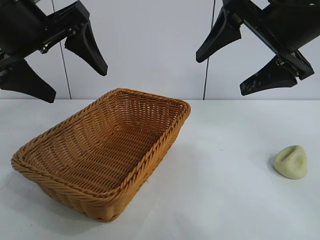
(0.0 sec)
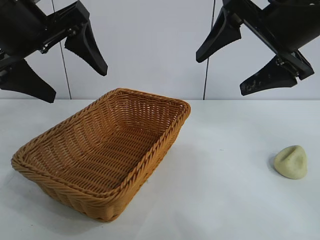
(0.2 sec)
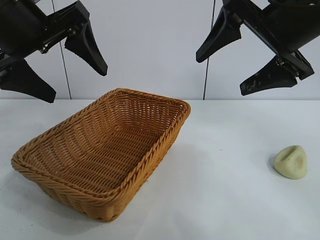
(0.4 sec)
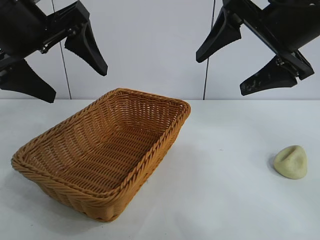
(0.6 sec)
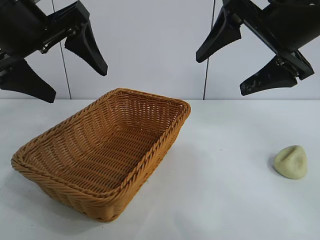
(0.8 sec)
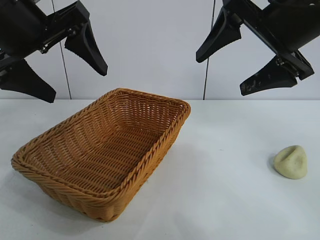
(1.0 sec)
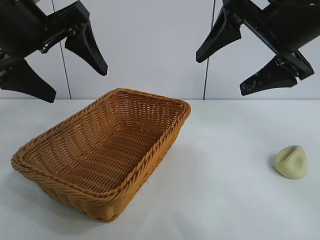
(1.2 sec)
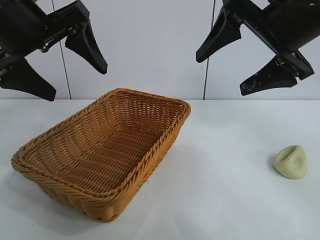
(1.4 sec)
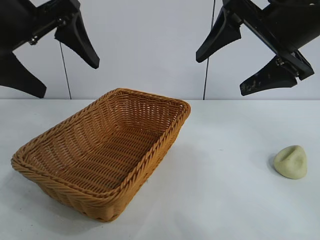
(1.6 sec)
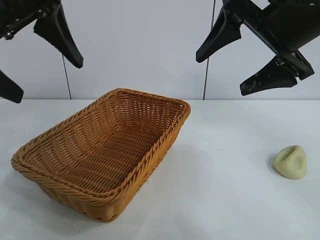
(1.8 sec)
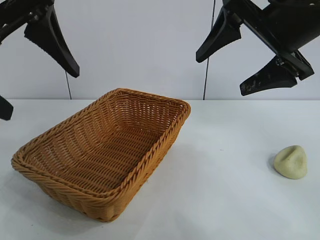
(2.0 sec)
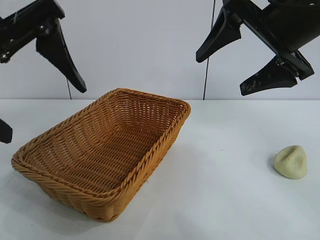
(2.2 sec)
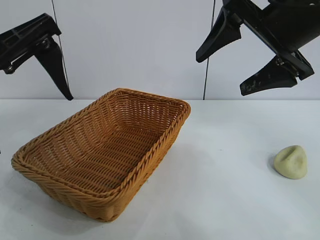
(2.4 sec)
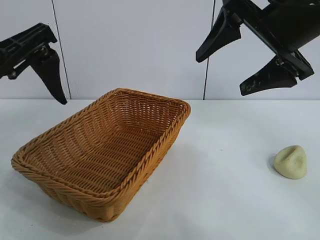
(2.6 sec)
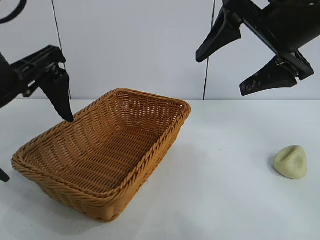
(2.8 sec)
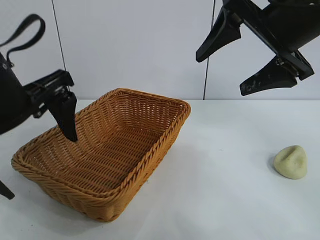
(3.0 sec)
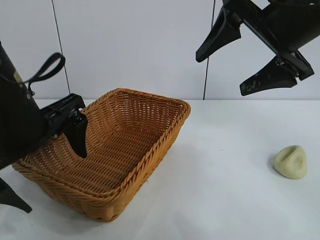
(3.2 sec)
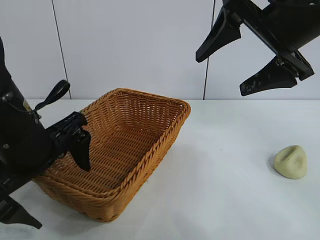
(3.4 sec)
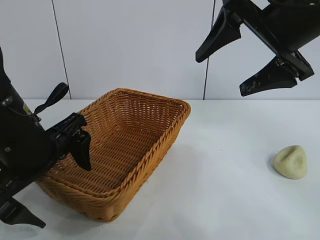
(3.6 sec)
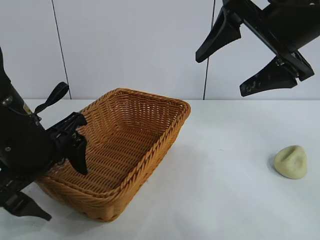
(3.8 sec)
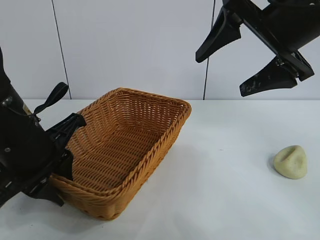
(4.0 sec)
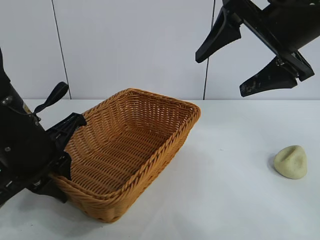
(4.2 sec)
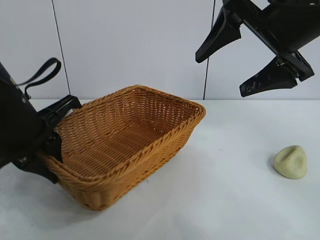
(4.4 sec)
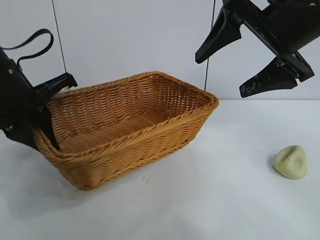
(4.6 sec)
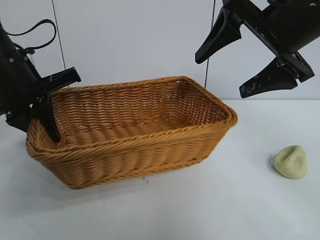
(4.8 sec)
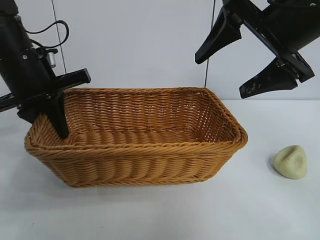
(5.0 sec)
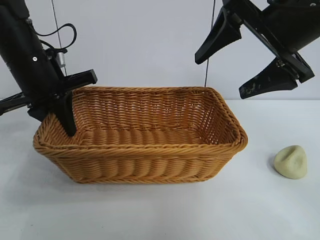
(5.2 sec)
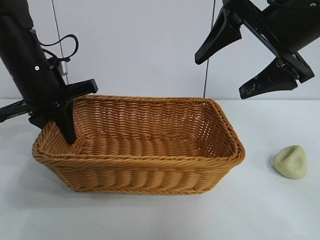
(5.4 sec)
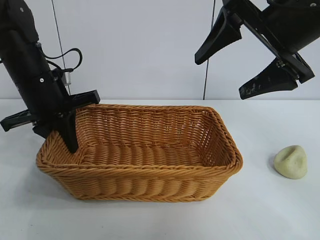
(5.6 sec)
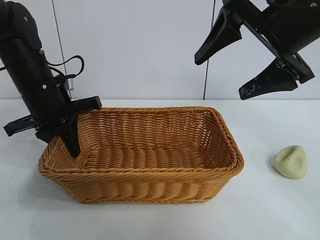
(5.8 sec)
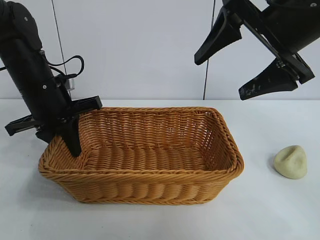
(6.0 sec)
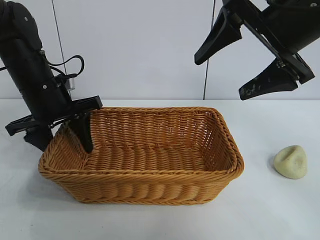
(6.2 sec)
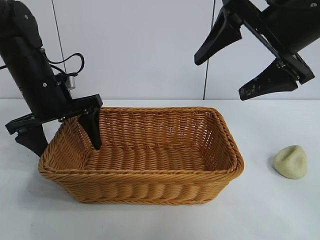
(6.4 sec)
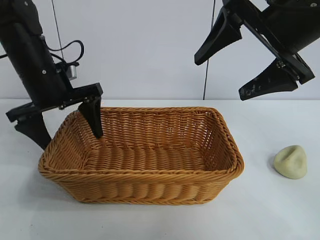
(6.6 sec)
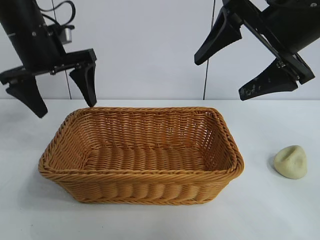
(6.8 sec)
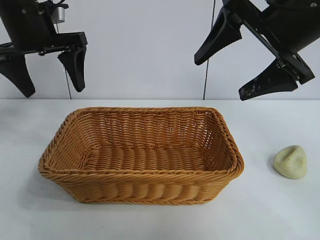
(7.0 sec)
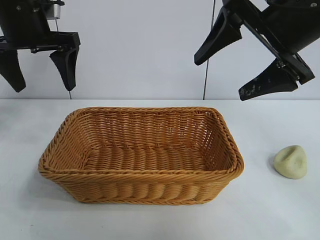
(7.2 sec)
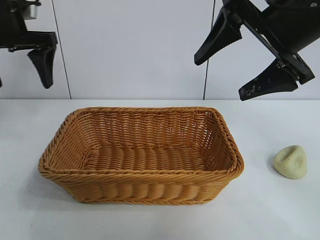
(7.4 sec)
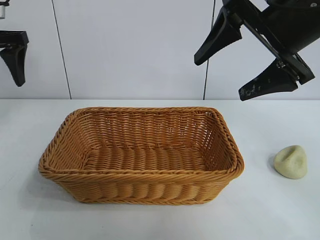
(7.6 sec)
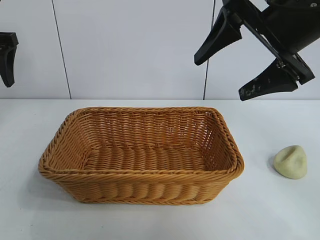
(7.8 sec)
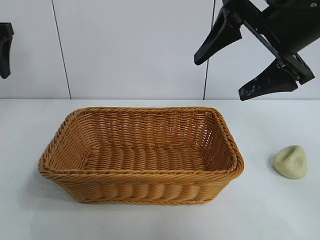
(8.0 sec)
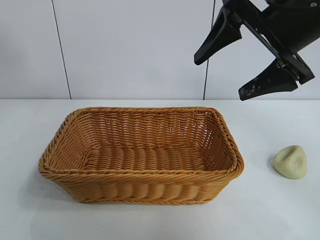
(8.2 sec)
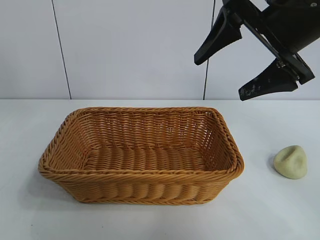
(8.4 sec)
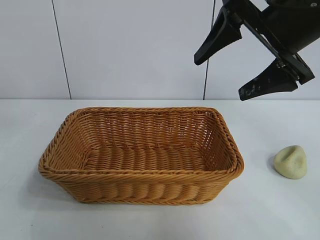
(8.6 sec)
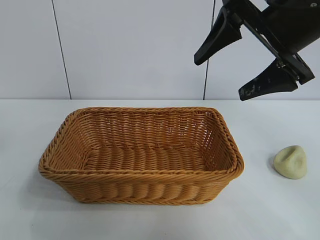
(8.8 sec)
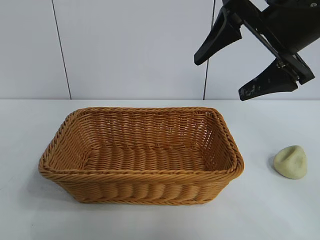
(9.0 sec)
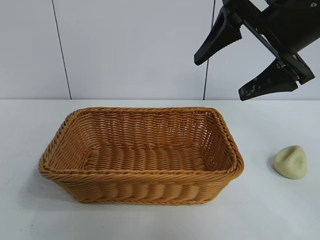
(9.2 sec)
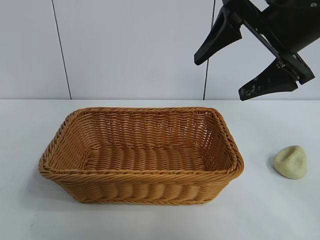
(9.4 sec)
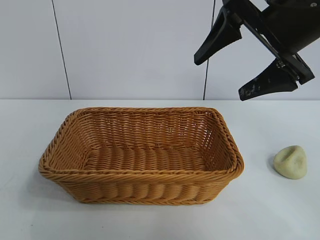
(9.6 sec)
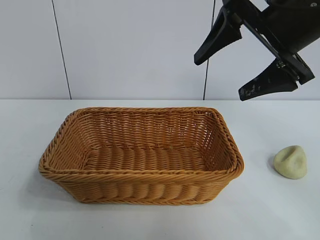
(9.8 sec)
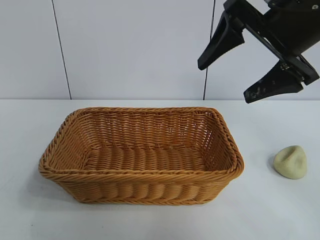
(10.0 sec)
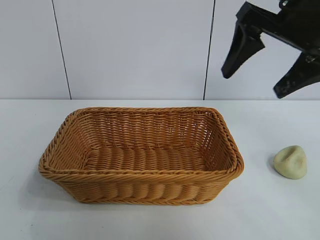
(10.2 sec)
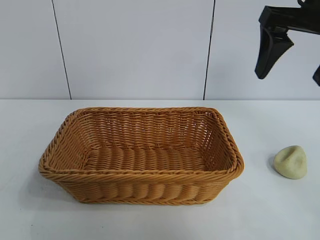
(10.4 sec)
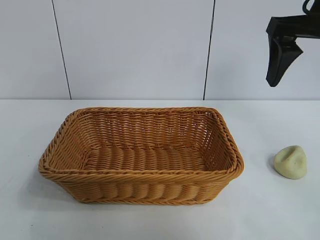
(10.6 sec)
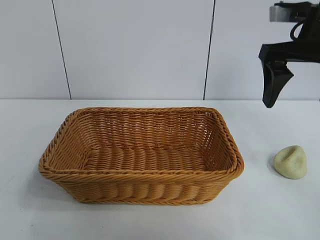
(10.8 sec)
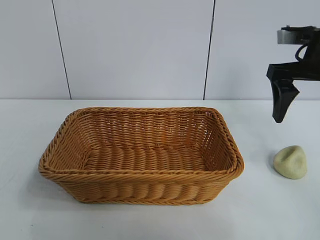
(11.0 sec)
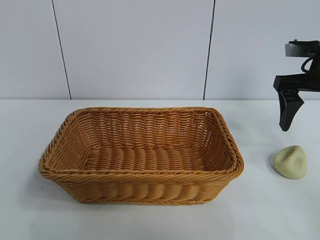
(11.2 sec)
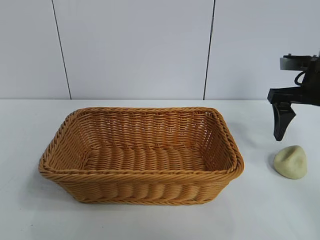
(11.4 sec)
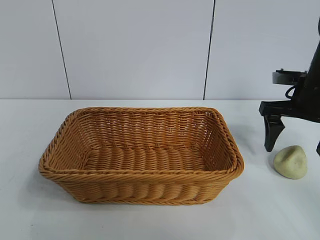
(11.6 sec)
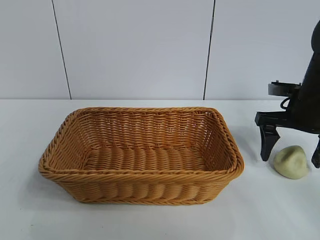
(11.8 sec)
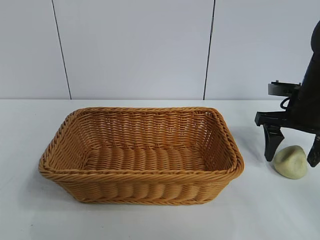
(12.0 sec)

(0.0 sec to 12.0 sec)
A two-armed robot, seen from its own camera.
Task of the whole recording: pick up the egg yolk pastry and put it into the basket.
Step, 1.4 sec - 4.0 sec: Grasp the basket with left gripper.
Step, 4.2 sec - 6.2 sec: Place the basket in the center of view with left gripper.

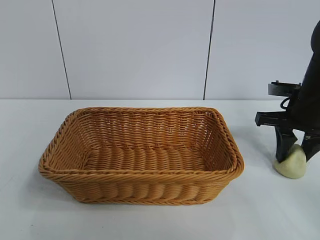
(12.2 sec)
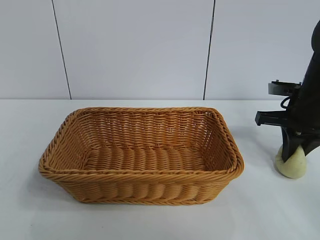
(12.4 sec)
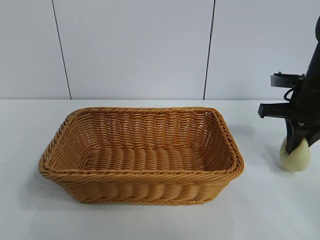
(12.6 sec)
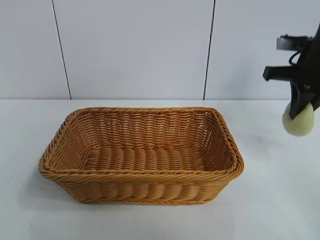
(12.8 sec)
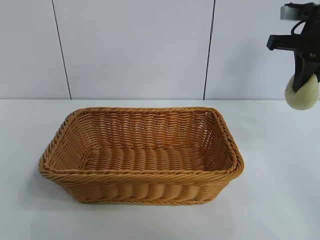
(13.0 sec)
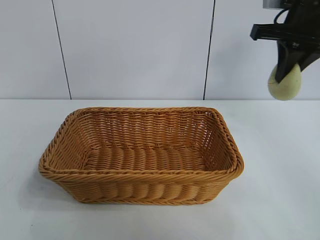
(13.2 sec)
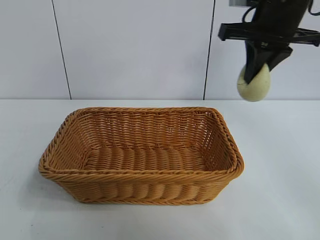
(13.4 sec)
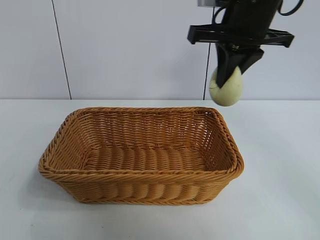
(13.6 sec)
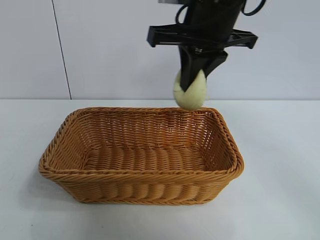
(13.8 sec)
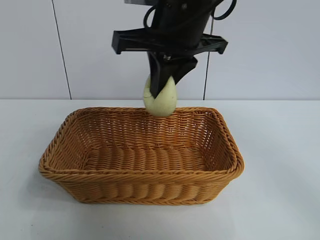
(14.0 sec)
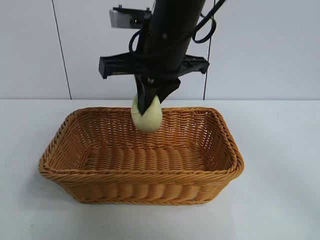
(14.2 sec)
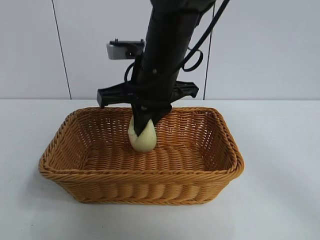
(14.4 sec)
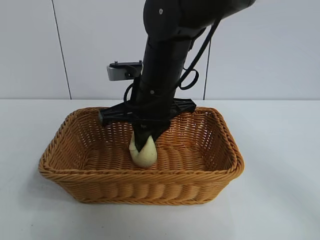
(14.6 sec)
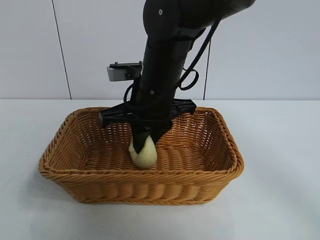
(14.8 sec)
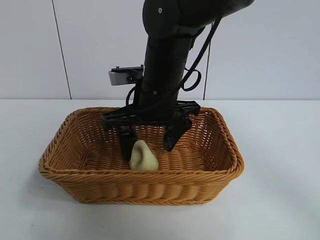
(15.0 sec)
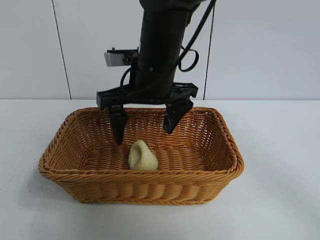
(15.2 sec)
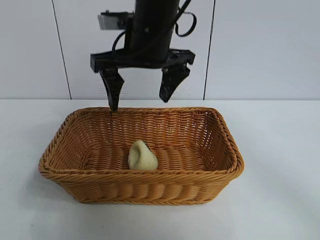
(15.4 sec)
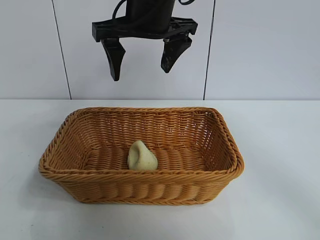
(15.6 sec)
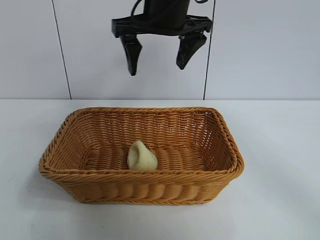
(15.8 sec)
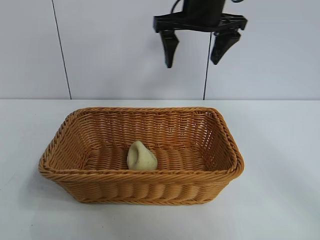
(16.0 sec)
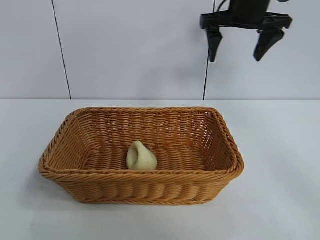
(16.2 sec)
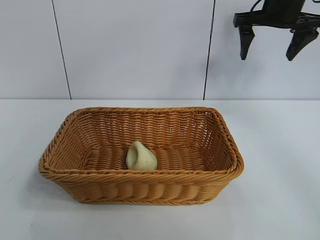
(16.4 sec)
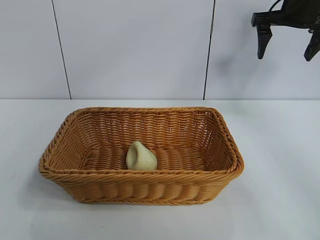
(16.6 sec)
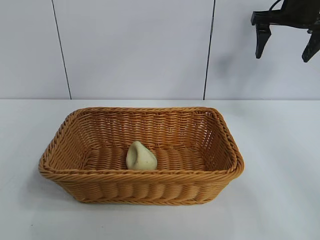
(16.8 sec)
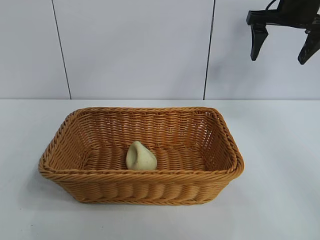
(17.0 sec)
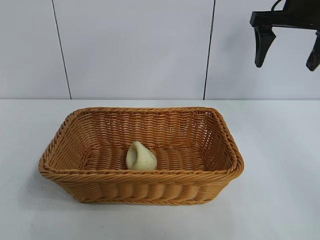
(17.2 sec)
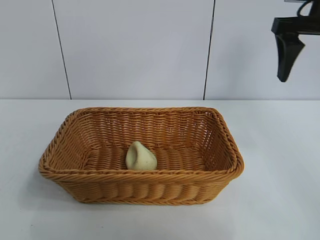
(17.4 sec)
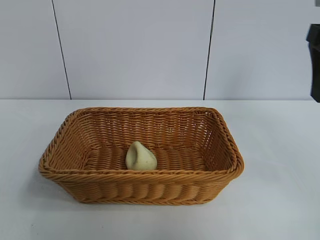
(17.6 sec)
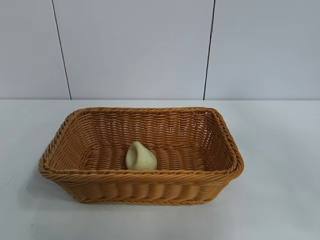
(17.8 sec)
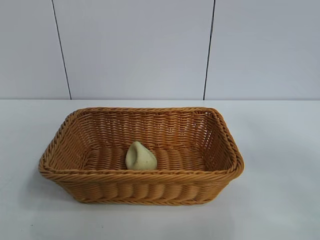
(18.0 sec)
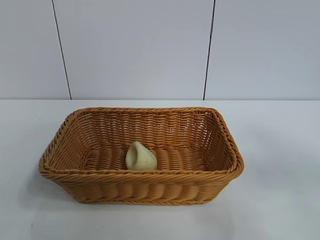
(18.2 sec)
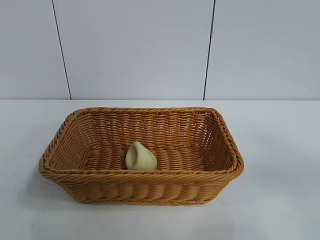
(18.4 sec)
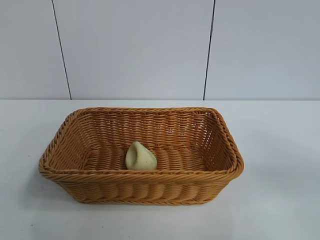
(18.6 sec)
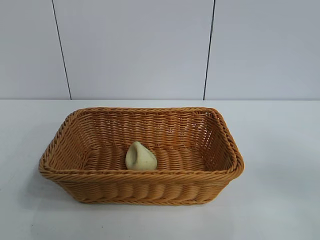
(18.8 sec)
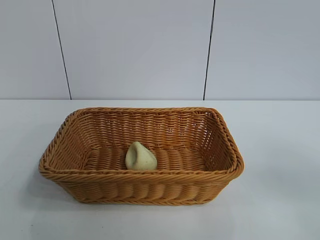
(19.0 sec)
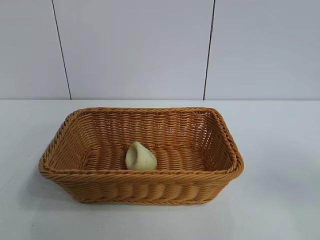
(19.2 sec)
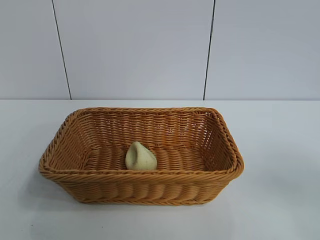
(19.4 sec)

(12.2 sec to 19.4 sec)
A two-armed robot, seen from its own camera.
Task of the whole recording: pick up the egg yolk pastry and put it into the basket.
Step, 12.6 sec - 15.0 sec: Place the egg yolk pastry in the basket with right gripper.
